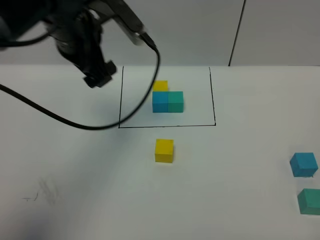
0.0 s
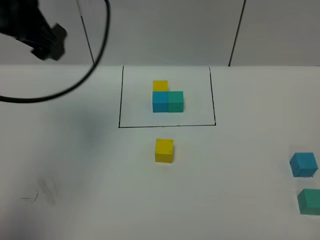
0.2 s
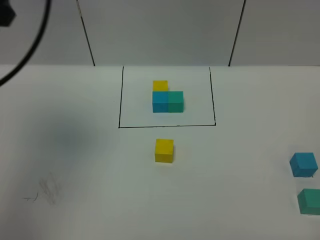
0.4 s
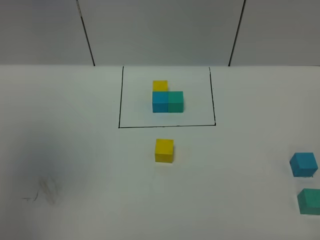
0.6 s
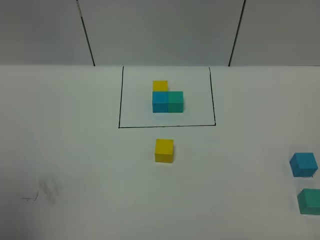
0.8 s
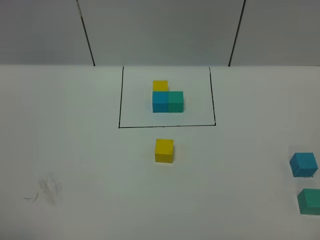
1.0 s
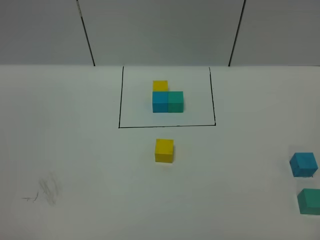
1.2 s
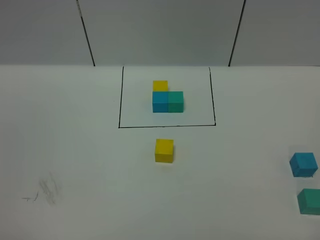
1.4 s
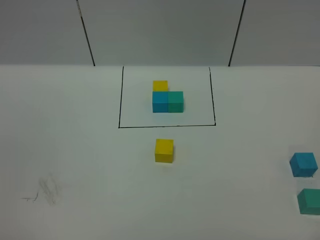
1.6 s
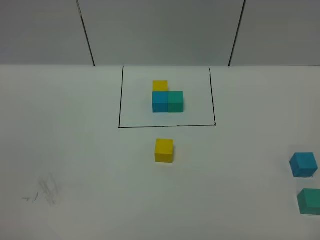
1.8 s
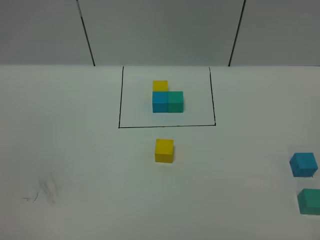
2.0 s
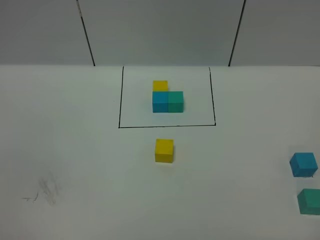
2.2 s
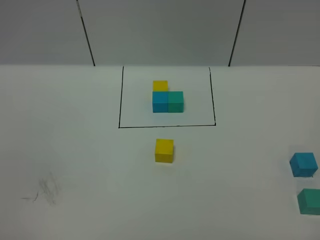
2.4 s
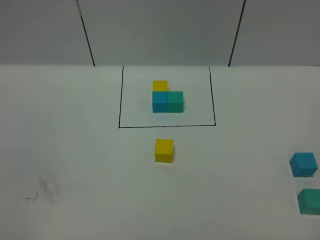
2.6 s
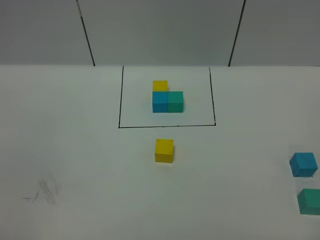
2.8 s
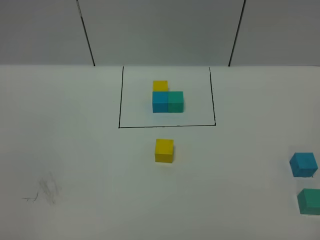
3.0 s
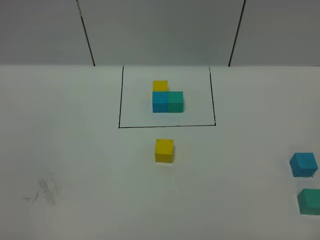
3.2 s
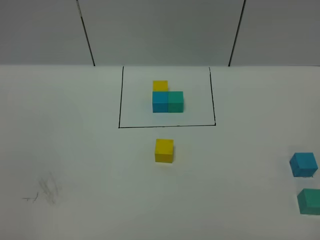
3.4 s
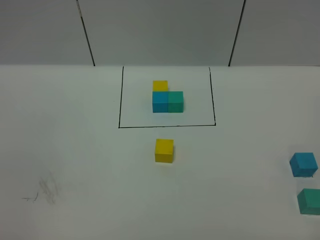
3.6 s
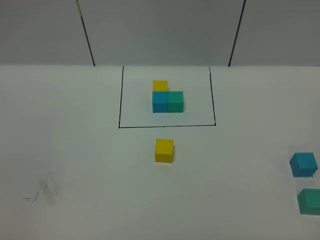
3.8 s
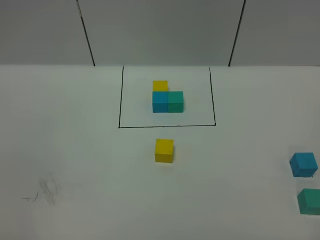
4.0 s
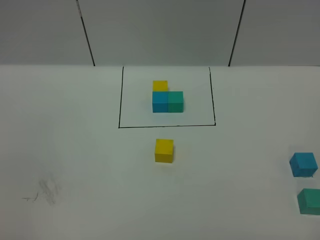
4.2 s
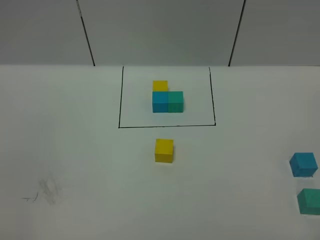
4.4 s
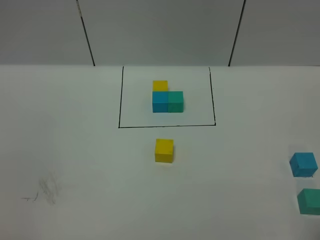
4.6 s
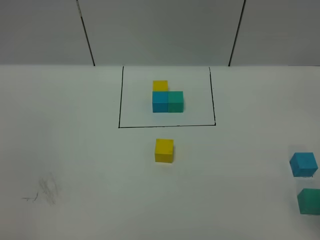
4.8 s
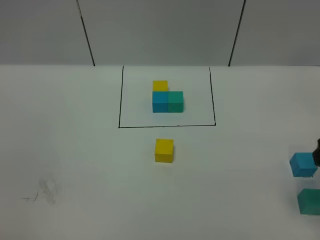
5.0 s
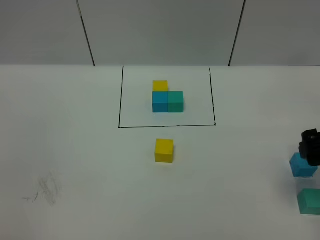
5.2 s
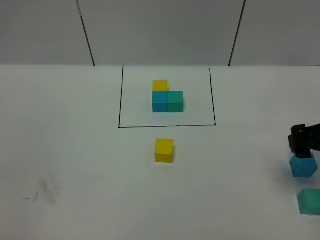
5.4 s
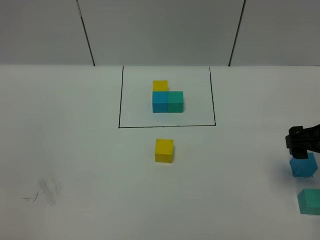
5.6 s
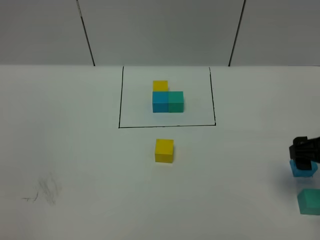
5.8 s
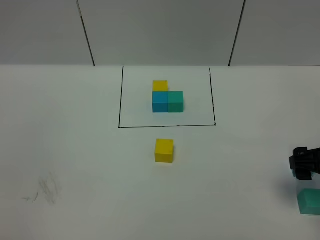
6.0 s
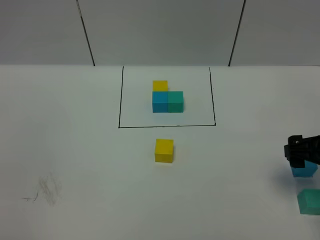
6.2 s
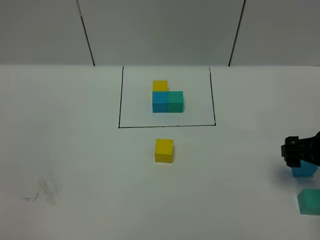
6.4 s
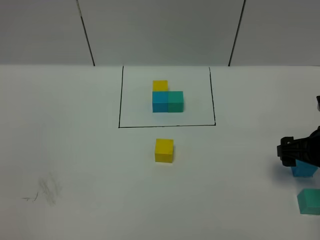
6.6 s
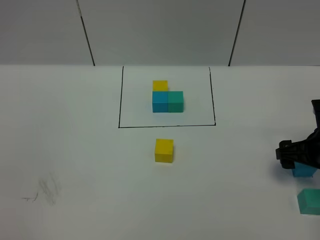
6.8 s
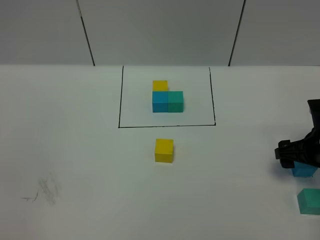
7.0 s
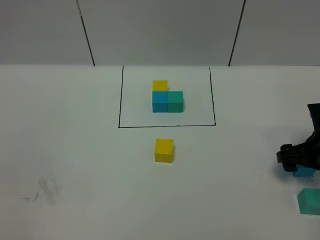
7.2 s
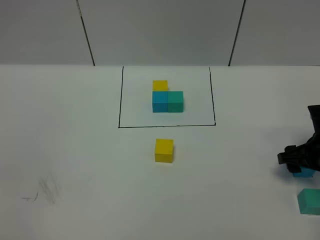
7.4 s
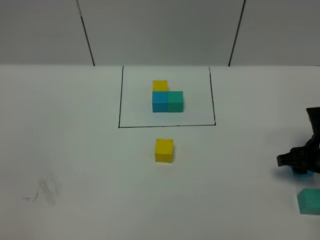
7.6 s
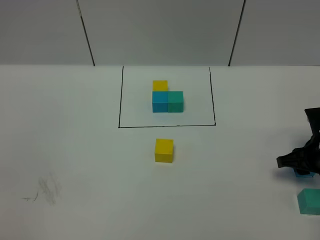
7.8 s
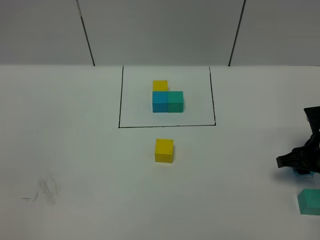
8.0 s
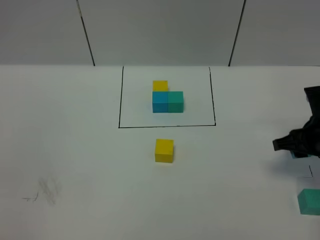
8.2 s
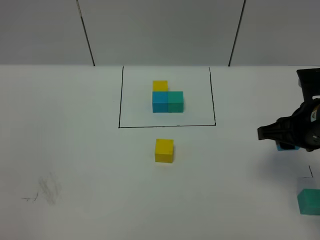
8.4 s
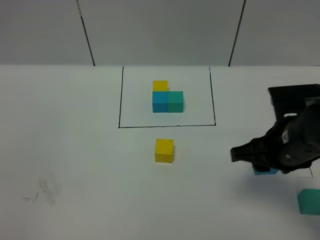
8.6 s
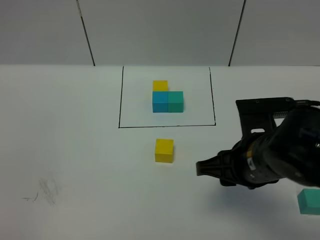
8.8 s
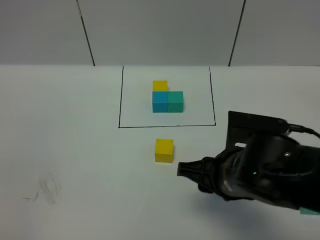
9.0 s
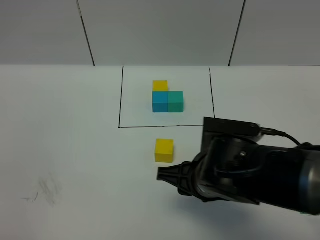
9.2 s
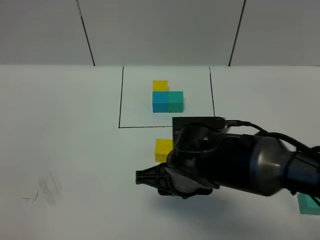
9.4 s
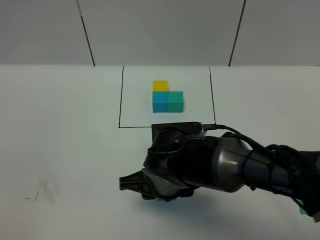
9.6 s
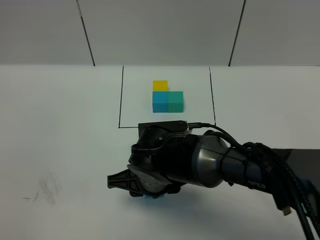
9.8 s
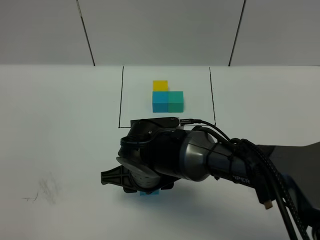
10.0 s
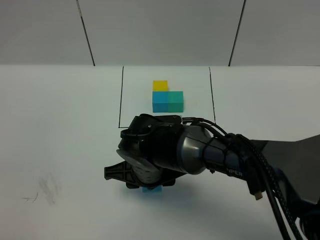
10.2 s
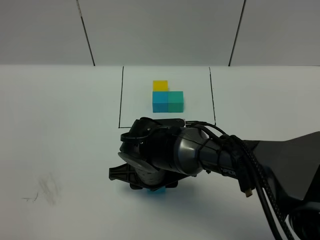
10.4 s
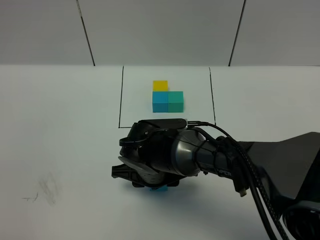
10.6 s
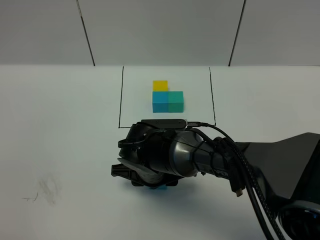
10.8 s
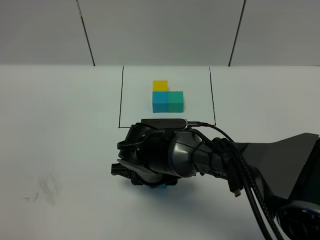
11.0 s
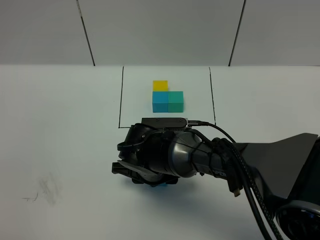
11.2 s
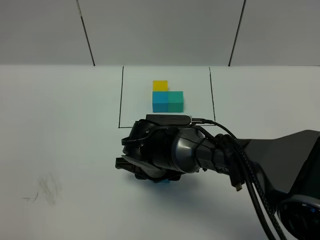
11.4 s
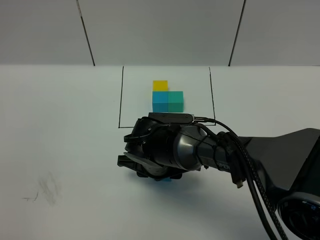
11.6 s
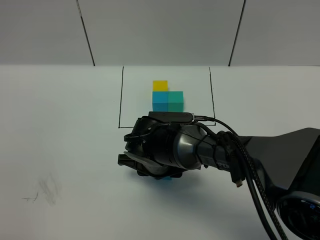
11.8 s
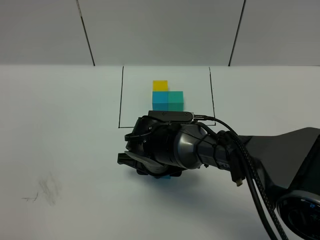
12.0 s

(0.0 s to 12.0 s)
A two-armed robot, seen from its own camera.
Task of the whole recording: According to the building block template in front, assemble the scattered blocks together.
0.0 s - 1.6 s: The left gripper heads backward and to the left, covering approximately 40 cm.
4.4 s - 6.0 s: The right gripper is displaced forward by some 20 cm.
6.0 s - 7.6 s: The right gripper goes some 10 cm downward and forward, and closes.
7.6 s - 9.0 s: The right gripper heads to the left, backward and upward, covering roughly 25 cm.
9.0 s - 10.4 s: The right gripper moves to the left, downward and forward, about 15 cm.
10.4 s - 12.0 s: There are only small adjustments of the grippers.

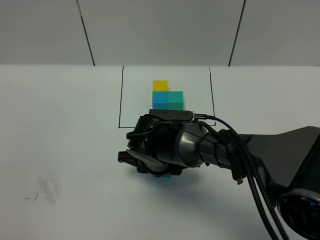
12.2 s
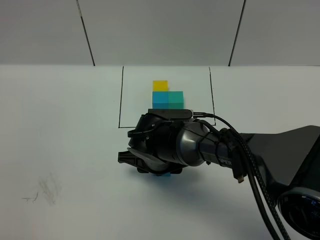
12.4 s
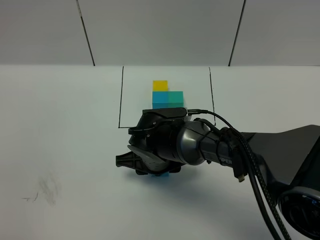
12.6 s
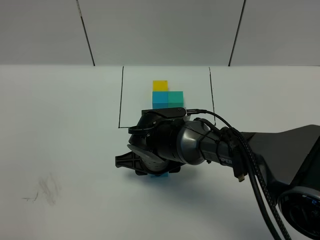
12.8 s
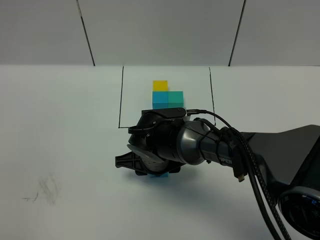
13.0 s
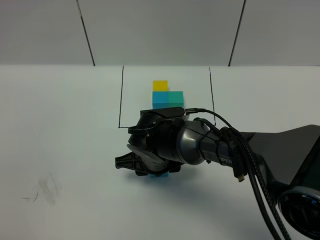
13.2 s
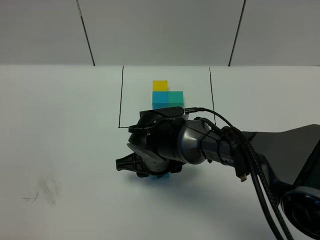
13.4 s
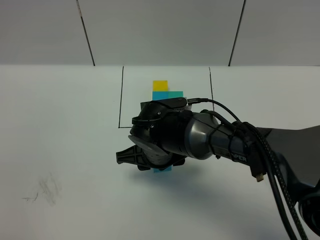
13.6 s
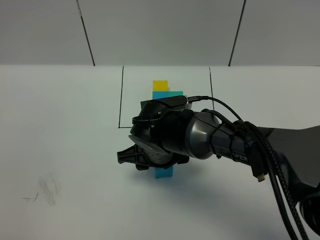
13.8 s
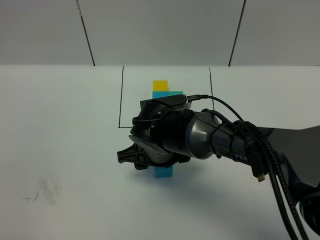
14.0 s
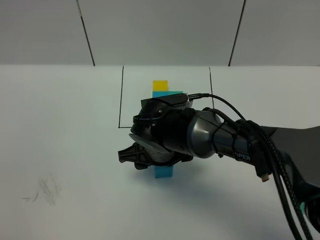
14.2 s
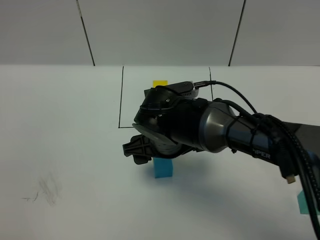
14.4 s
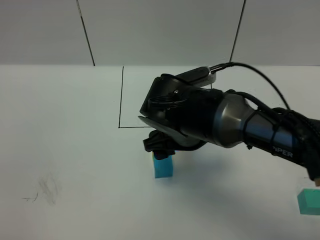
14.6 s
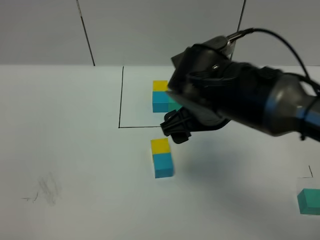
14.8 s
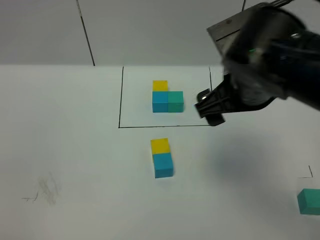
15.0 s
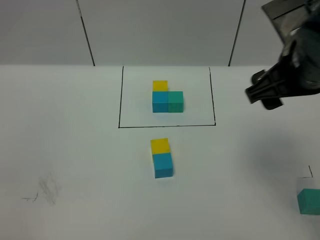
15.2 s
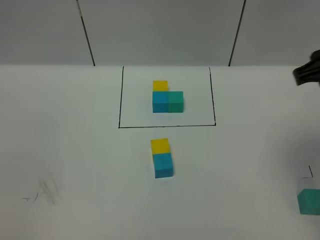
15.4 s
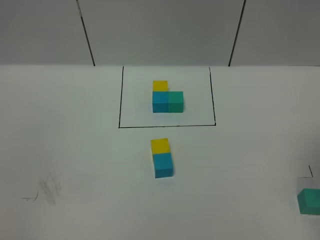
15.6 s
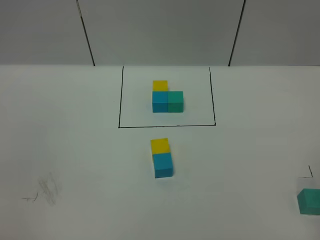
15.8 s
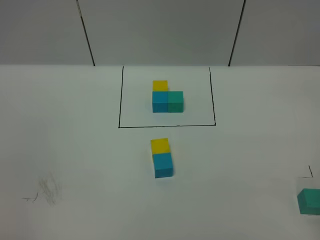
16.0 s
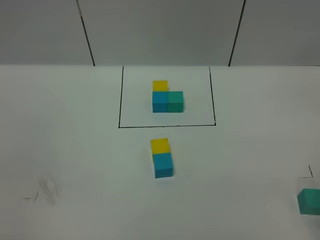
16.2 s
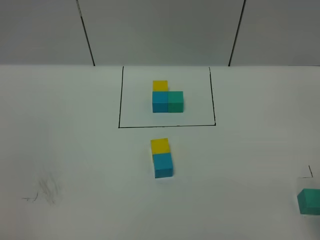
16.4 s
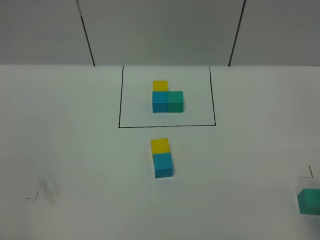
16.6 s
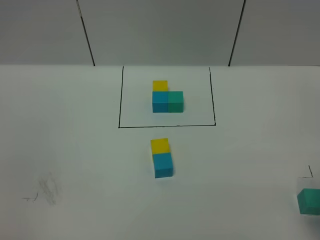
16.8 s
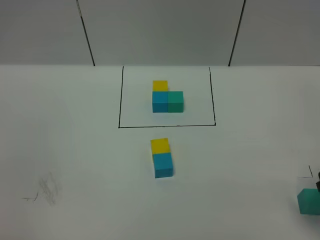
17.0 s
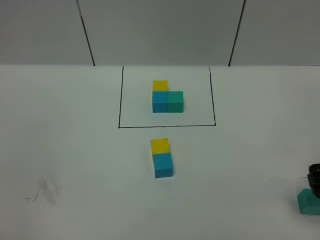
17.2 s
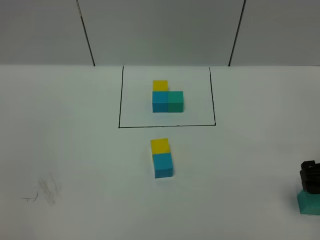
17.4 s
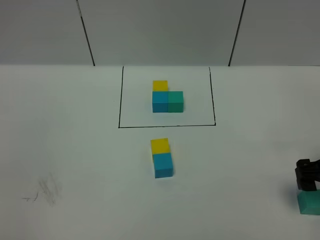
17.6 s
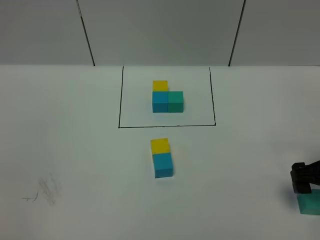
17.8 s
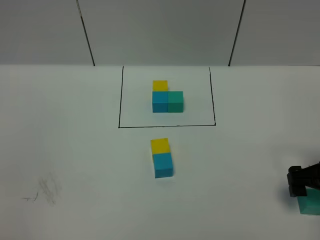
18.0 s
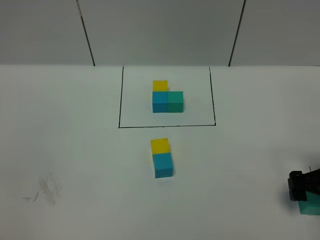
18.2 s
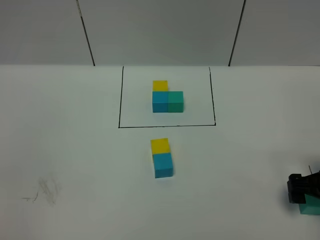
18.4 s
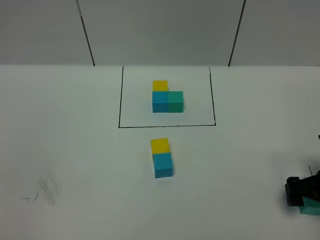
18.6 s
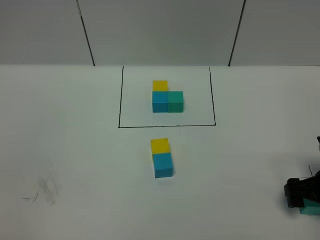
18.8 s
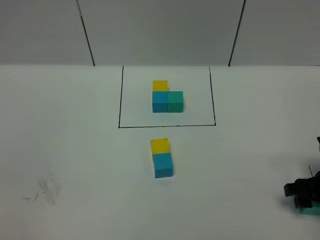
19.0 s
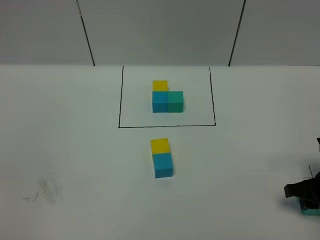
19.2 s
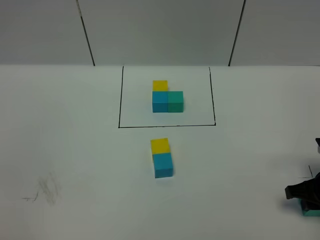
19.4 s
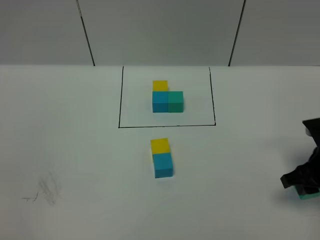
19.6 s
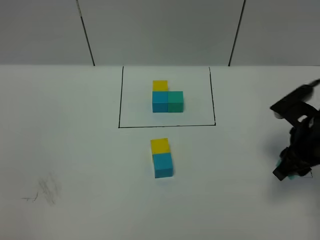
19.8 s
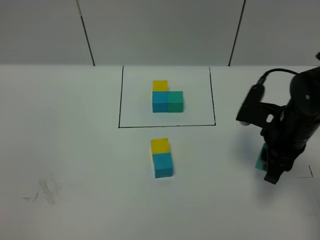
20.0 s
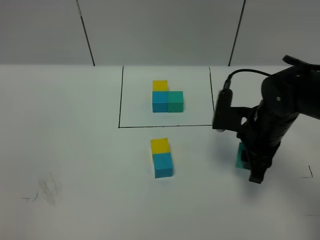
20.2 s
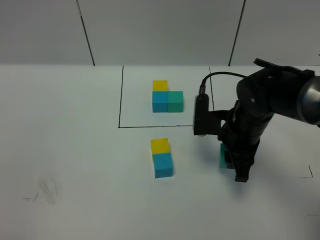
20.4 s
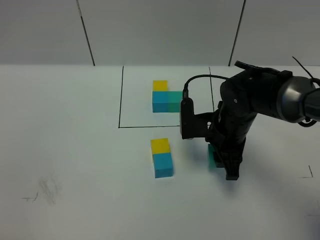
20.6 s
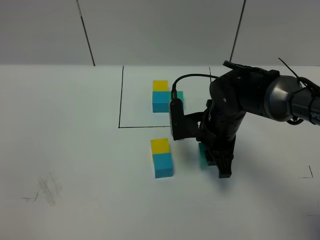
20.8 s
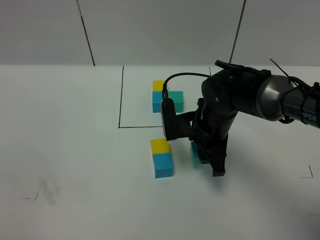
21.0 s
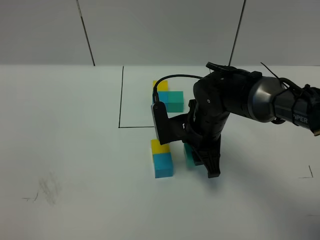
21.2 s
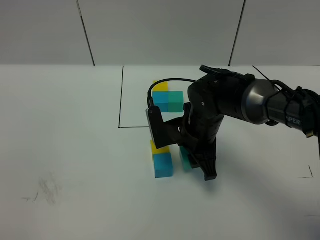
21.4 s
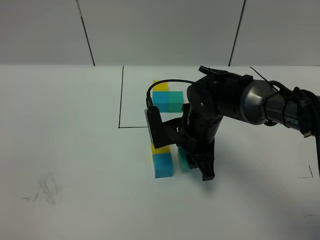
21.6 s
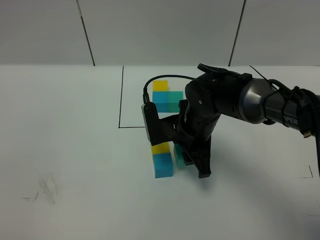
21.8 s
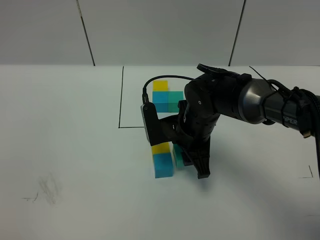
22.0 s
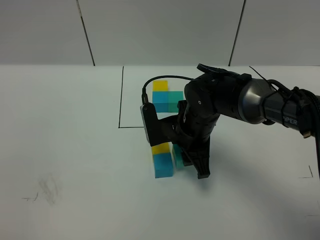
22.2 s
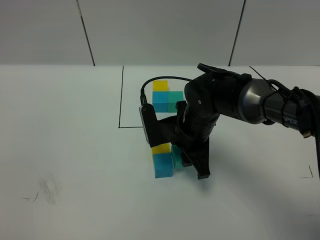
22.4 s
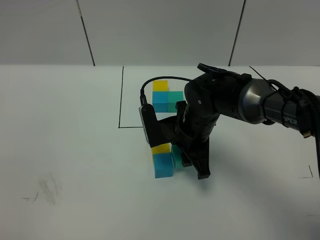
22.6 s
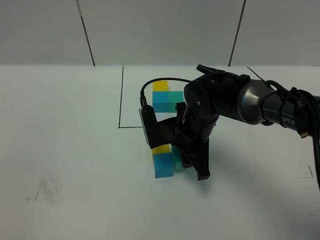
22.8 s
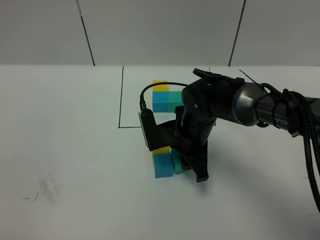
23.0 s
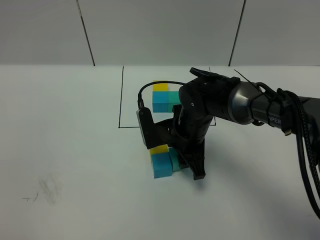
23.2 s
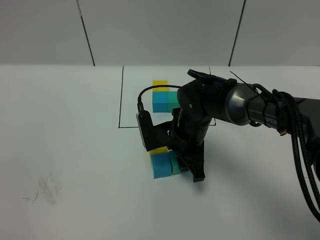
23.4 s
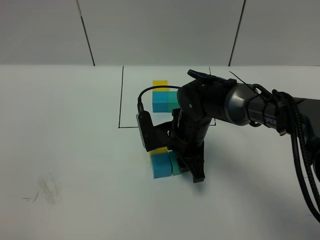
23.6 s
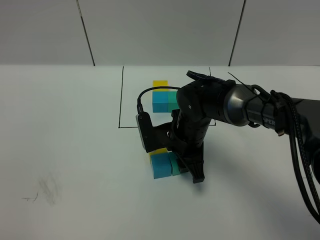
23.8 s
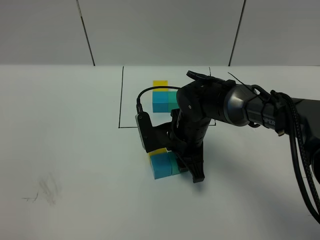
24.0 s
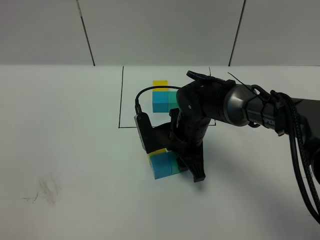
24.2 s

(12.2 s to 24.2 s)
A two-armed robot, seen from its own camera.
Task of the whole recording: According to the building block template in front, assemble the scattered blocks together.
Step, 12.2 s - 14.2 s: Put the blue cube in the front of the yellow cube.
12.2 s - 13.8 s: The grippers move only a little.
13.8 s - 15.2 s: The right gripper is displaced upward and to the right by roughly 30 cm.
15.2 s - 16.6 s: The right gripper goes some 15 cm backward, to the right and downward, and closes.
16.6 s - 18.2 s: The right gripper shifts roughly 15 cm downward and forward, and opens up.
18.2 s - 19.8 s: The right gripper travels to the left and upward by approximately 10 cm, and closes its fingers.
19.8 s - 21.2 s: The right gripper moves to the left, some 15 cm.
21.2 s - 24.2 s: The grippers move only a little.
